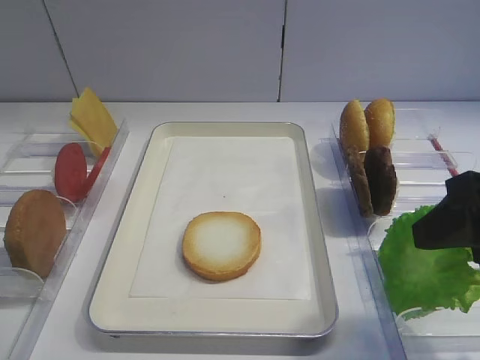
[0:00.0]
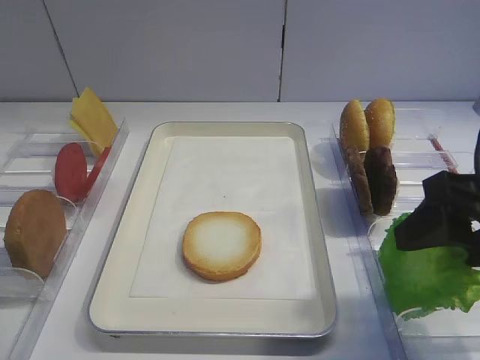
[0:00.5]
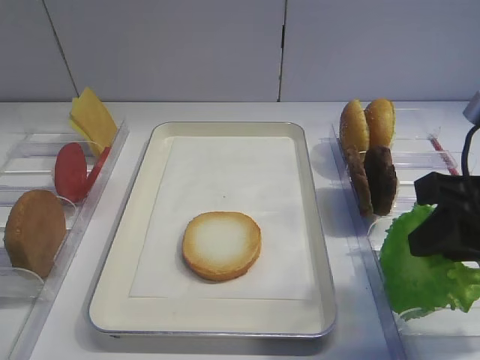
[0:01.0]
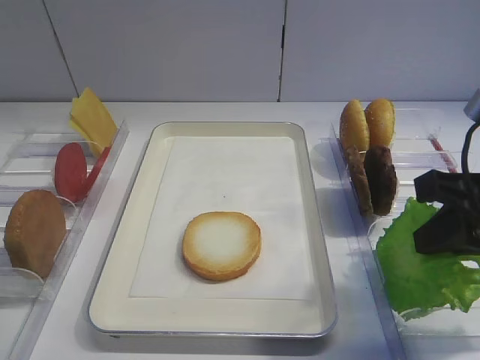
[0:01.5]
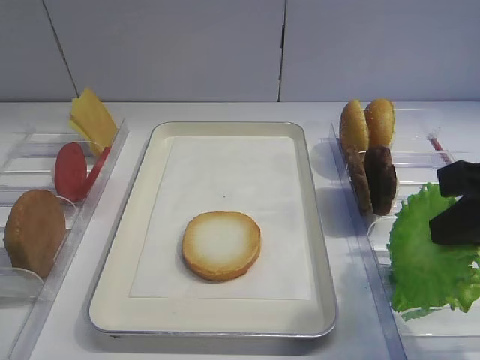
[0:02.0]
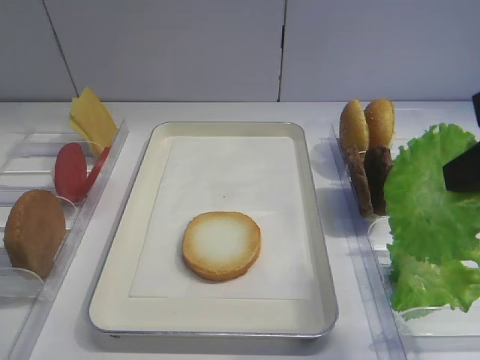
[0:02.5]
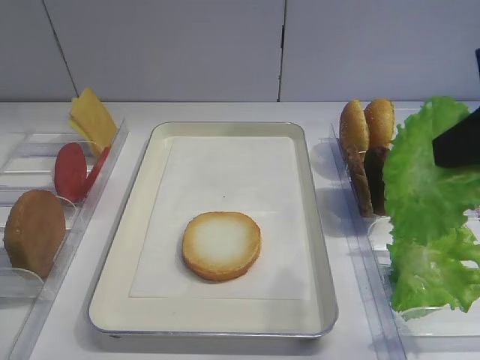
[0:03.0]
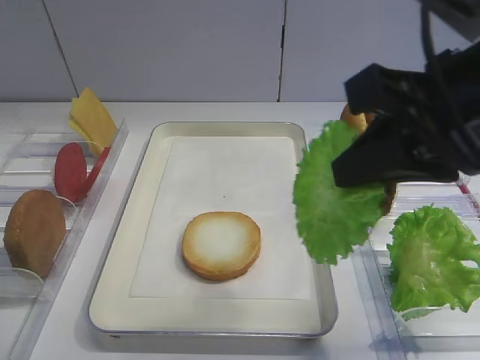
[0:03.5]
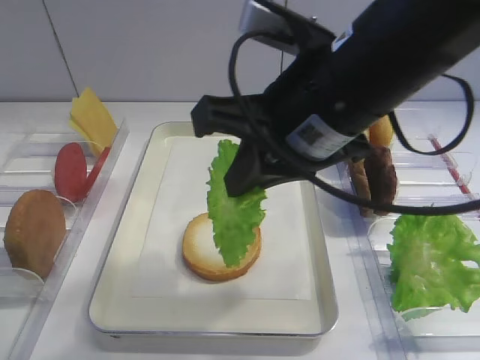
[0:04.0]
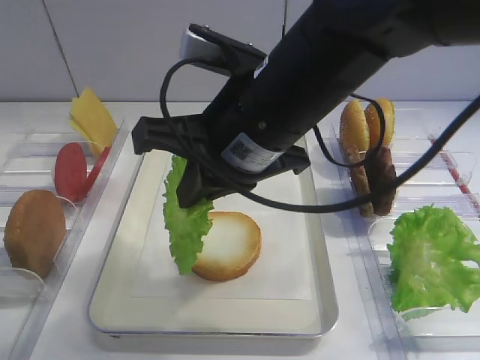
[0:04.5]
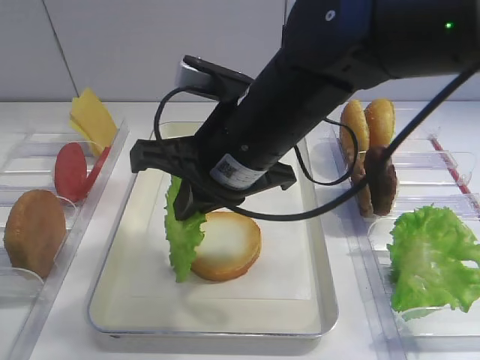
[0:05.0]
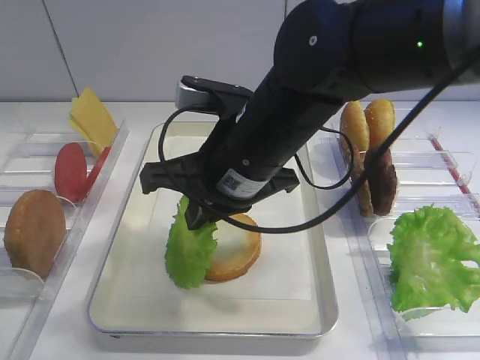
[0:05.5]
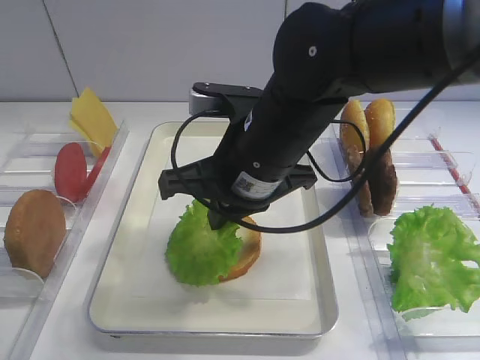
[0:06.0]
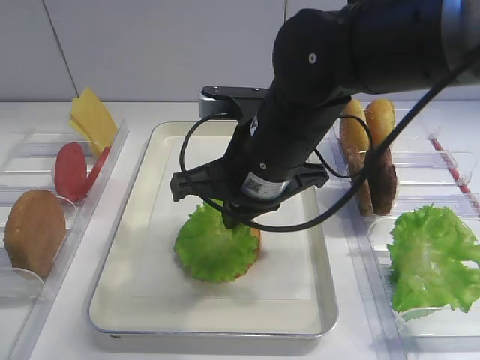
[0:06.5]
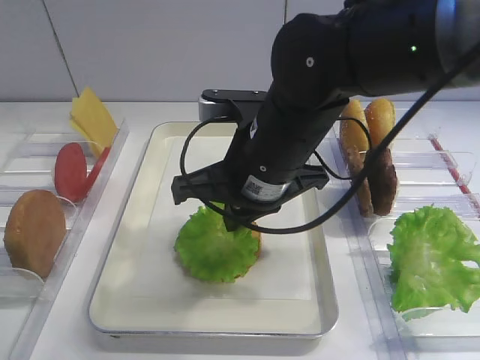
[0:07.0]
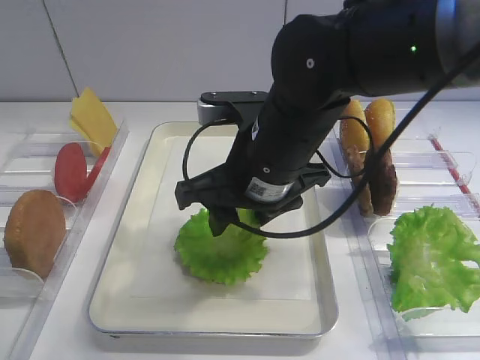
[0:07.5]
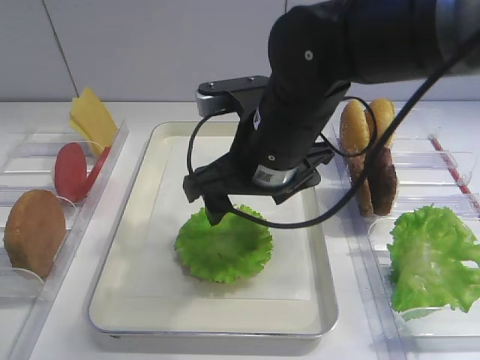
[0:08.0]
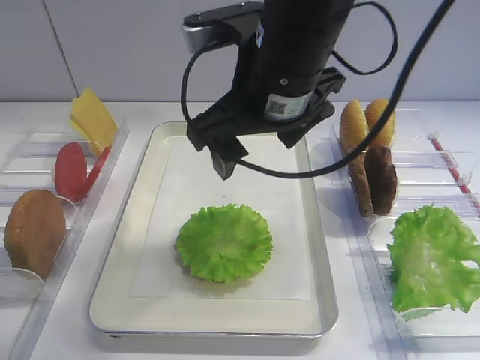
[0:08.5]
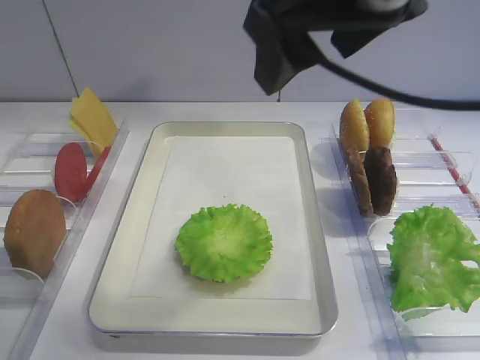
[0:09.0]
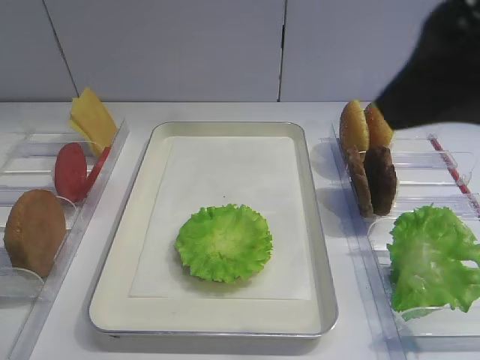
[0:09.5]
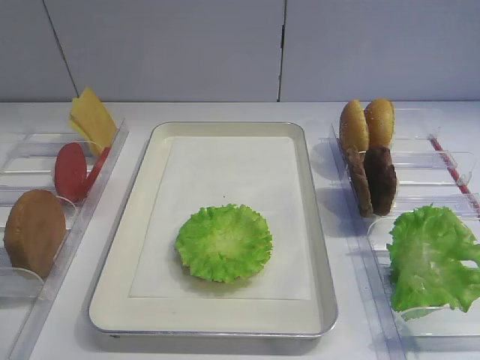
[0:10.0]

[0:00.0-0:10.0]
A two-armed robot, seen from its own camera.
Step, 0:00.0 to 0:02.5: Pick up the lettuce leaf with the right gripper.
Step, 0:03.0 to 0:08.5: Place the lettuce leaf on the bread slice with the right gripper.
0:00.0 to 0:02.0: The right gripper closes.
0:02.0 to 0:04.0: The right gripper goes approximately 15 cm to the left.
0:04.0 to 0:06.0: The right gripper is displaced downward and to the left by about 10 cm.
0:06.0 to 0:08.0: The right gripper opens.
0:08.0 to 0:10.0: The right gripper is displaced backward and to the right by approximately 30 cm.

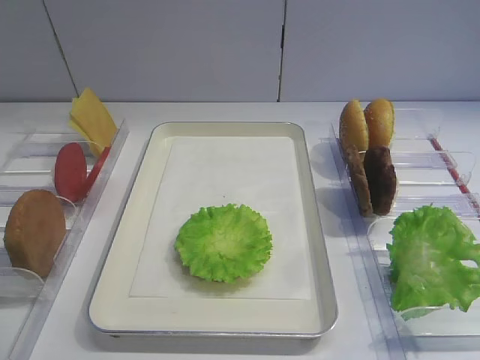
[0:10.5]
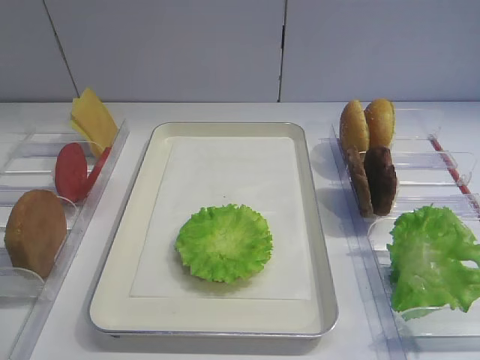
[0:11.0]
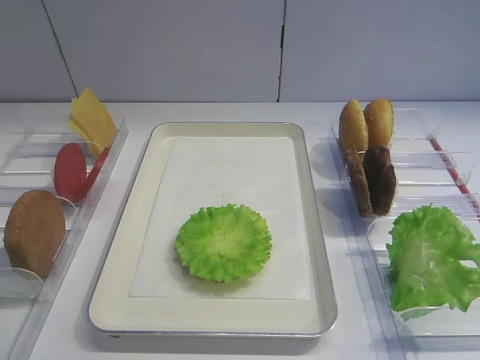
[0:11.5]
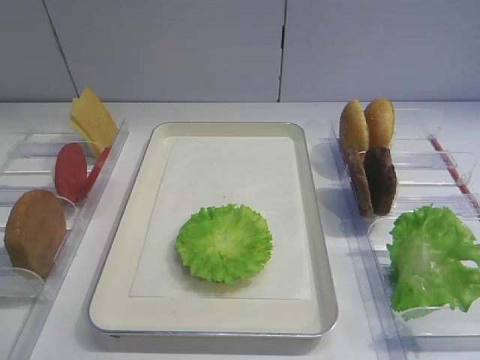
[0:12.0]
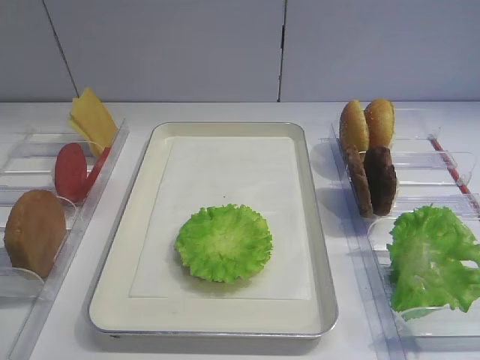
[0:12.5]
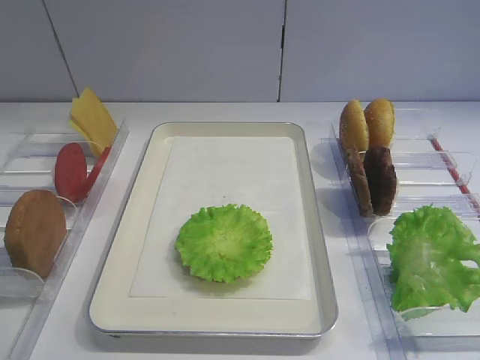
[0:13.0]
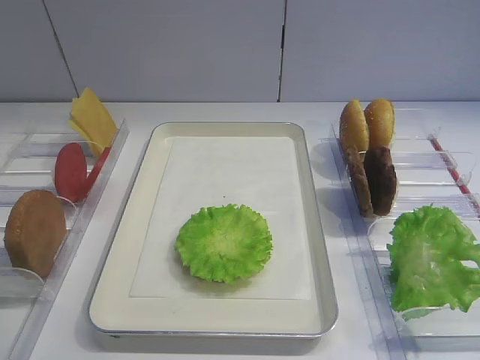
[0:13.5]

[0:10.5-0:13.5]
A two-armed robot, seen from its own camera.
0:12.0 to 0:13.5: Both grippers stay put.

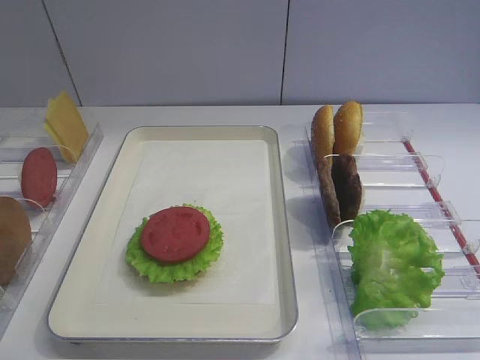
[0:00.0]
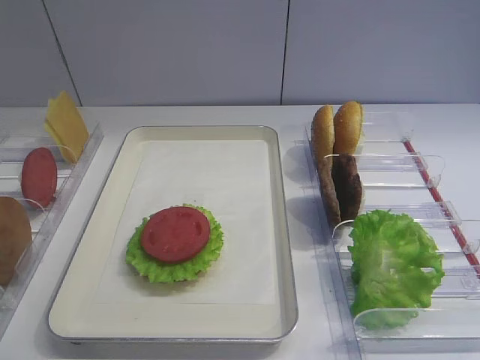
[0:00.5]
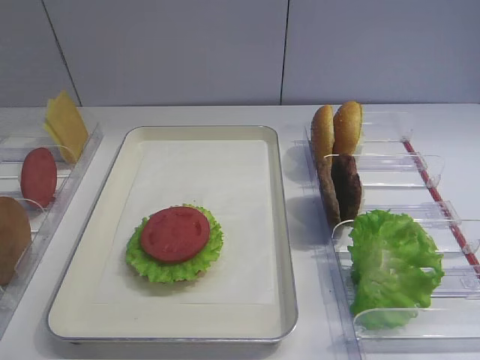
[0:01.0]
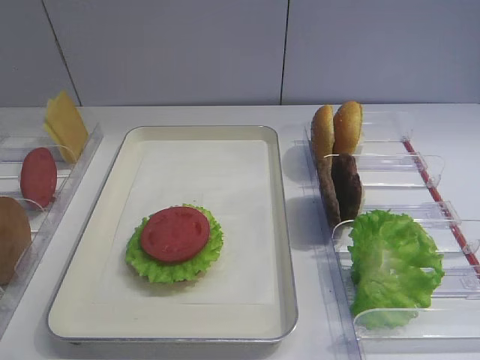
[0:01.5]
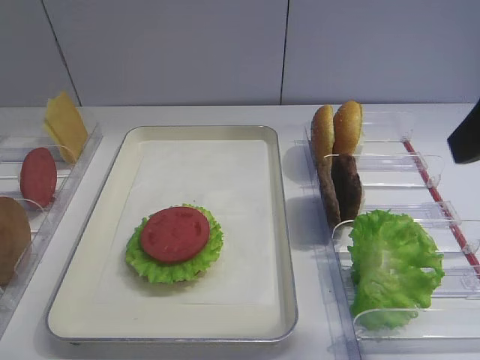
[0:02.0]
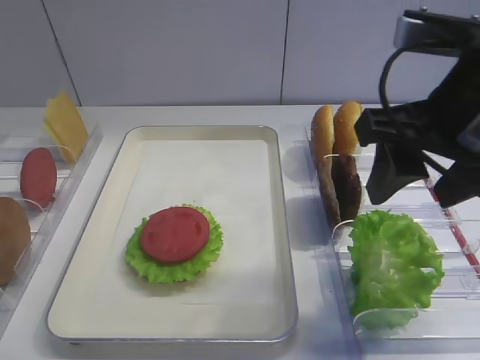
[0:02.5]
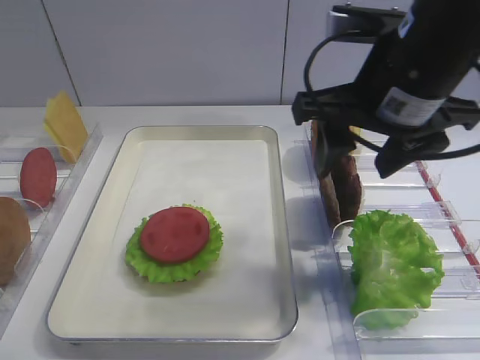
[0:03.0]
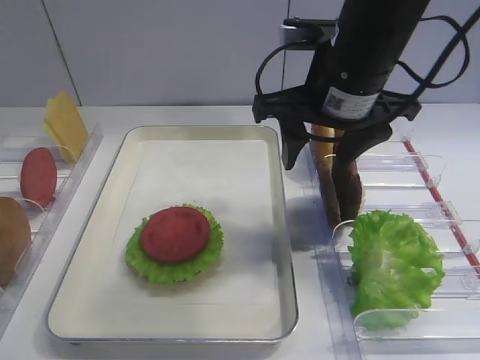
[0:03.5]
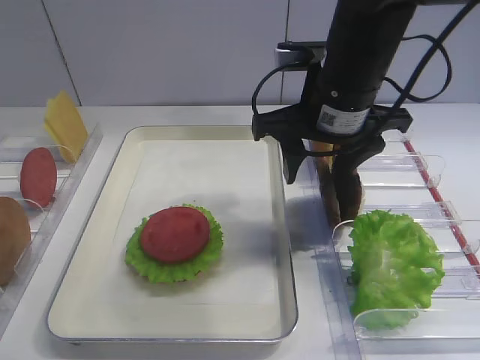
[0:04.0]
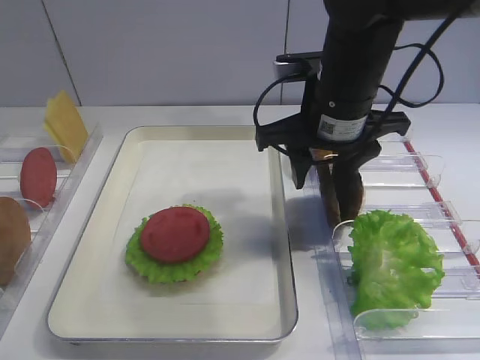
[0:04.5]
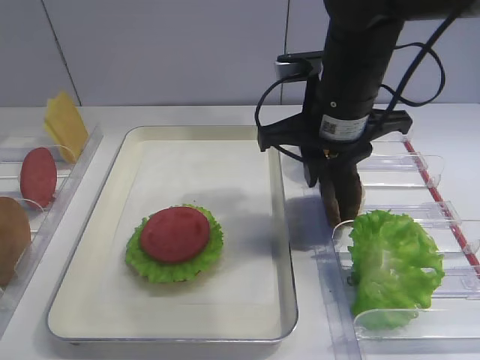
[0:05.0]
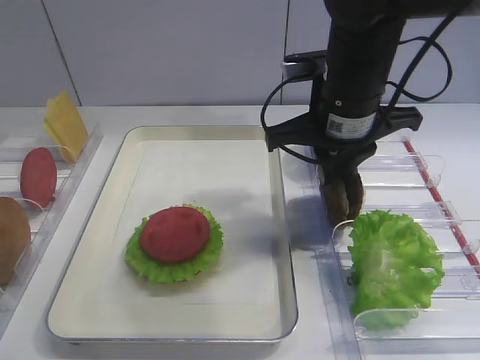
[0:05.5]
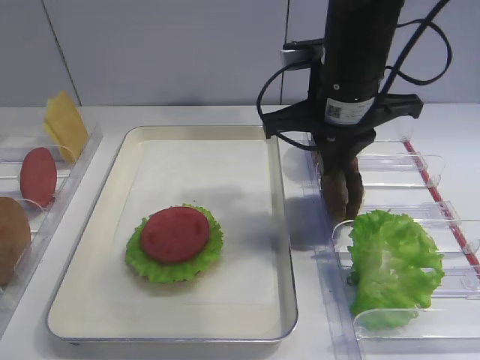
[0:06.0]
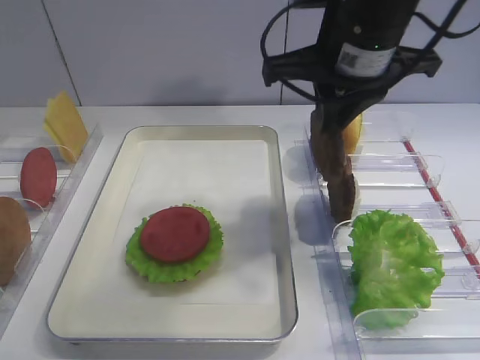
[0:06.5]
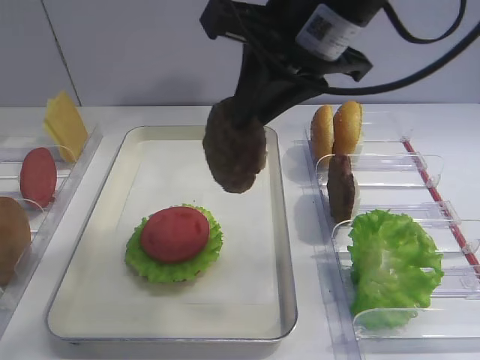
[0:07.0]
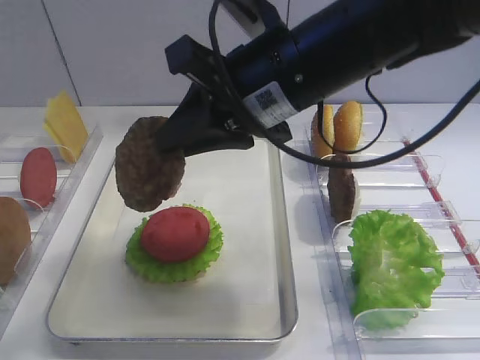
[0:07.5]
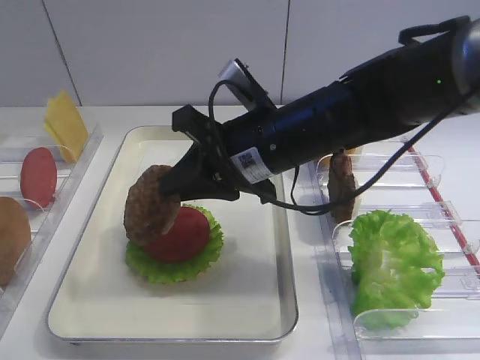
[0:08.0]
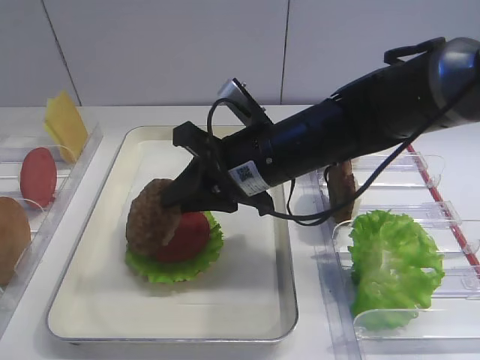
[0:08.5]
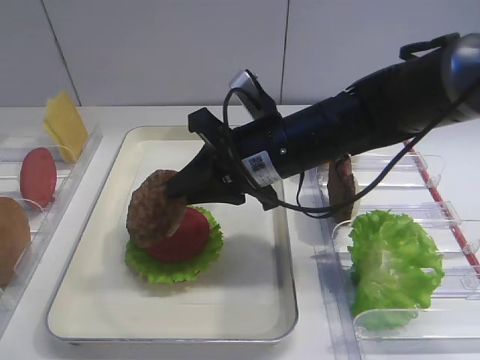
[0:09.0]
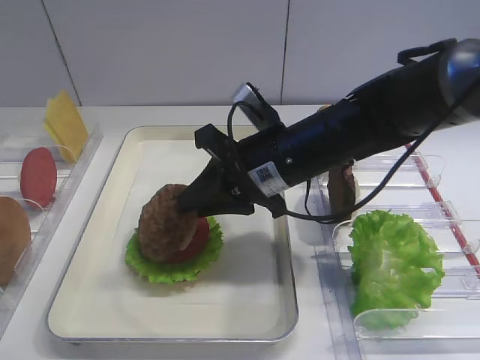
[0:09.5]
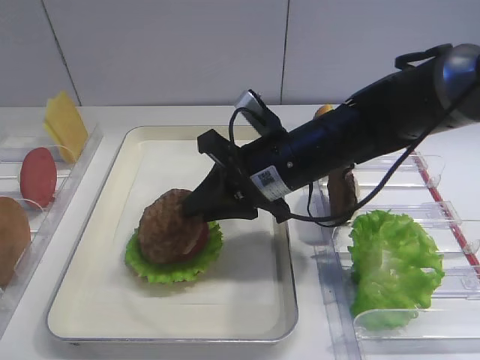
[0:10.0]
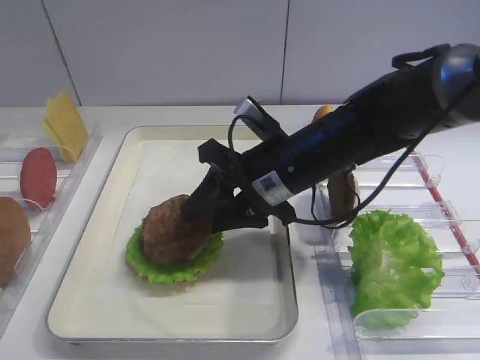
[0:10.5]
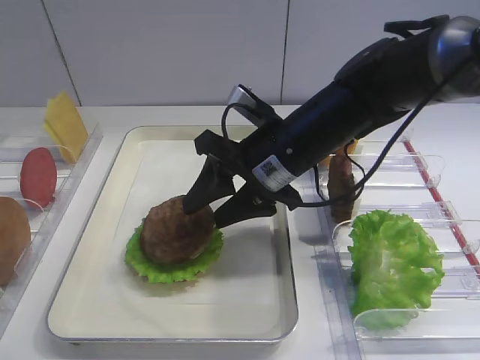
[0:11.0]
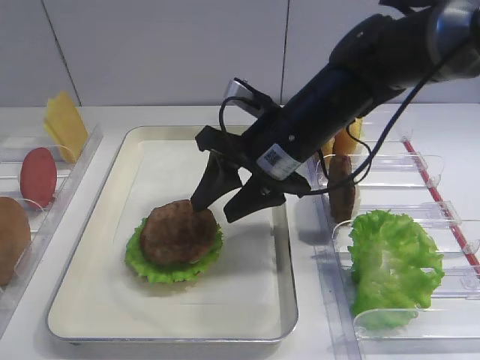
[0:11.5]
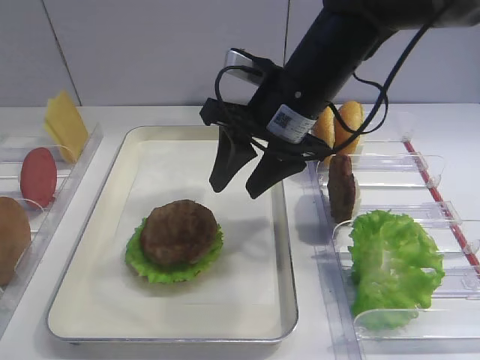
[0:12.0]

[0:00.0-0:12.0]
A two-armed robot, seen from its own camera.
Step, 0:00.0 to 0:06.0: Pick up the cutlet with the right gripper.
Step, 0:06.5 to 0:11.5: Place the cutlet on the tomato slice with the right gripper.
0:02.0 to 0:04.0: The right gripper travels forward, to the left and downward by about 20 cm.
0:04.0 to 0:06.0: The right gripper closes up.
0:06.0 to 0:08.0: The right gripper shifts about 5 cm to the left, and goes upward and returns, approximately 10 cm each way.
0:08.0 to 0:10.0: The grippers make only small movements.
0:10.0 to 0:12.0: The right gripper heads upward, covering some 5 cm, and opens up.
